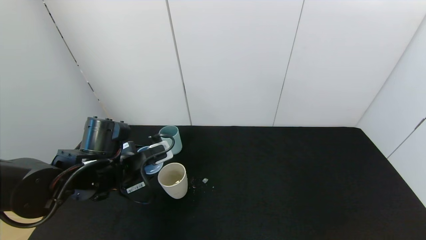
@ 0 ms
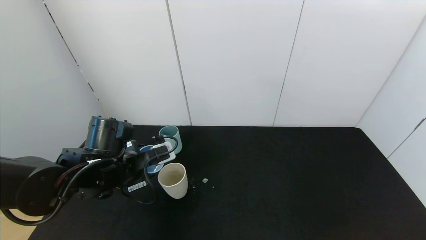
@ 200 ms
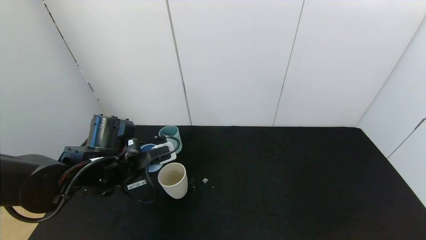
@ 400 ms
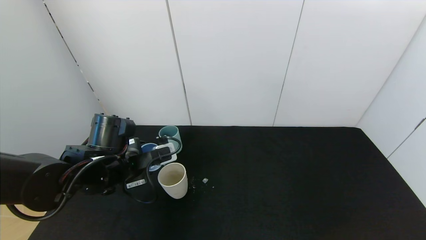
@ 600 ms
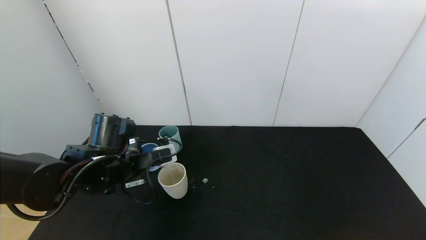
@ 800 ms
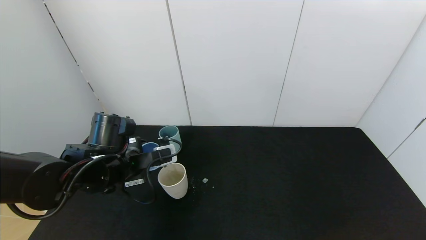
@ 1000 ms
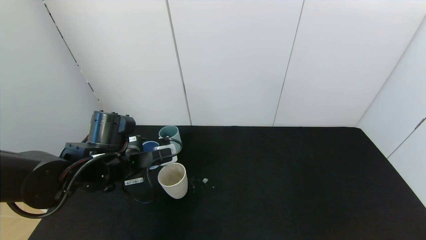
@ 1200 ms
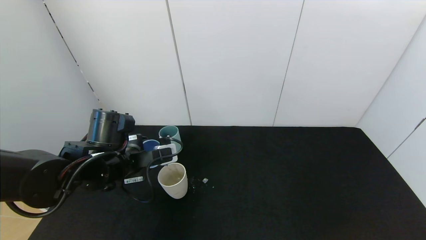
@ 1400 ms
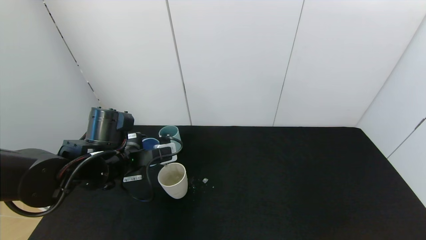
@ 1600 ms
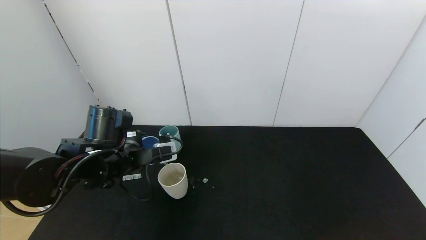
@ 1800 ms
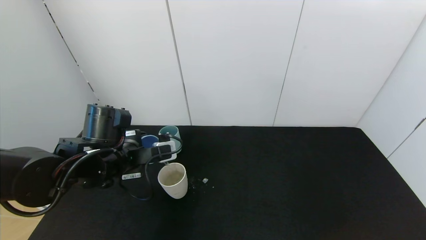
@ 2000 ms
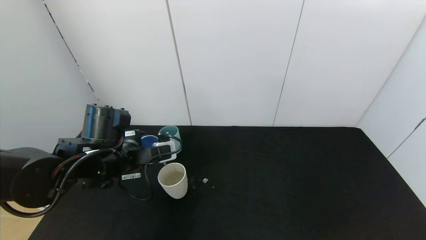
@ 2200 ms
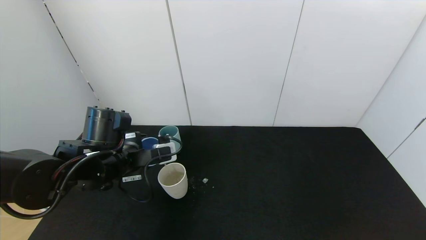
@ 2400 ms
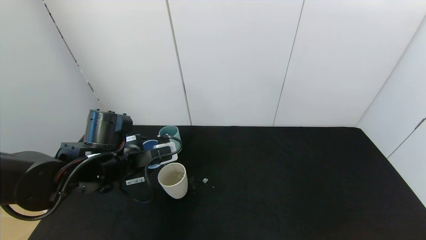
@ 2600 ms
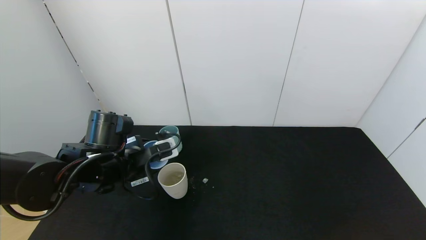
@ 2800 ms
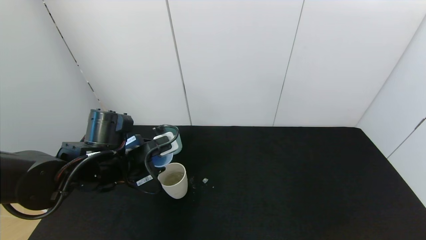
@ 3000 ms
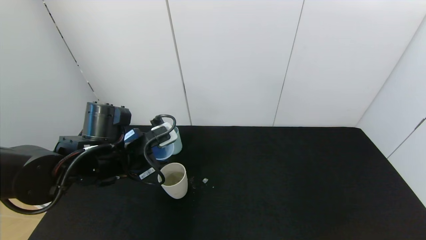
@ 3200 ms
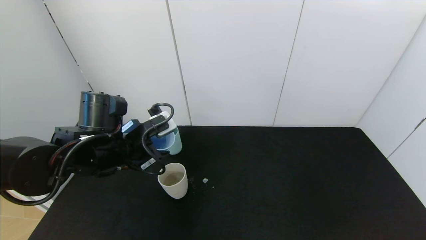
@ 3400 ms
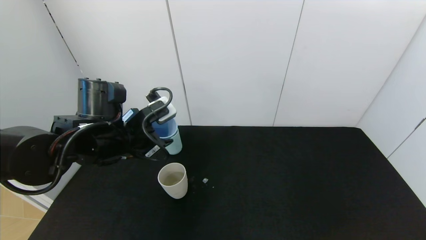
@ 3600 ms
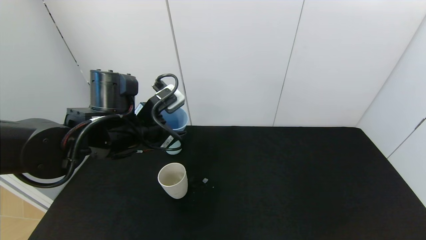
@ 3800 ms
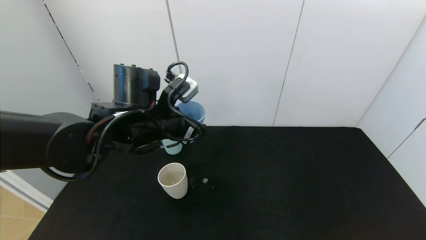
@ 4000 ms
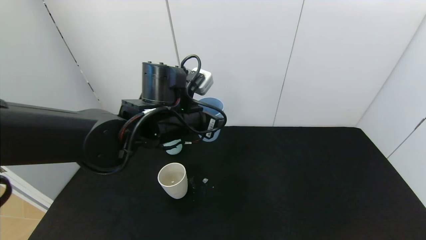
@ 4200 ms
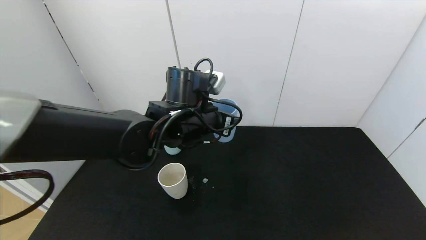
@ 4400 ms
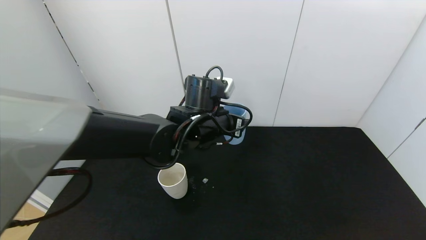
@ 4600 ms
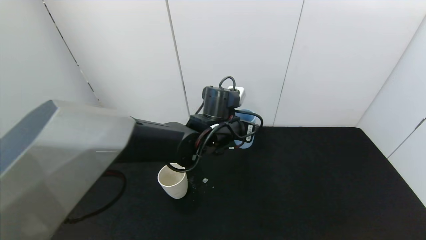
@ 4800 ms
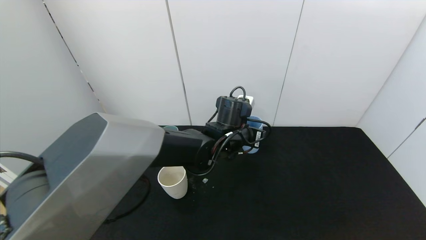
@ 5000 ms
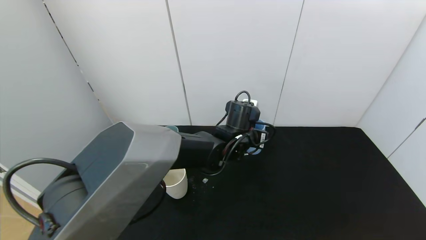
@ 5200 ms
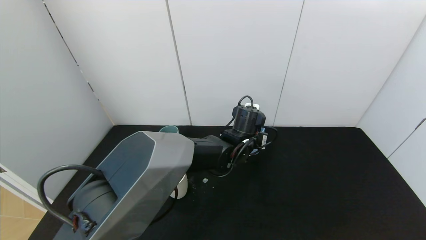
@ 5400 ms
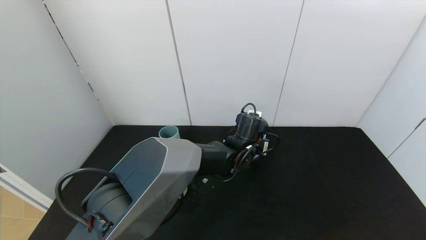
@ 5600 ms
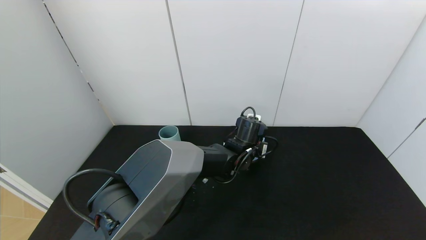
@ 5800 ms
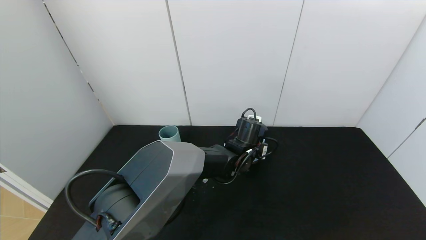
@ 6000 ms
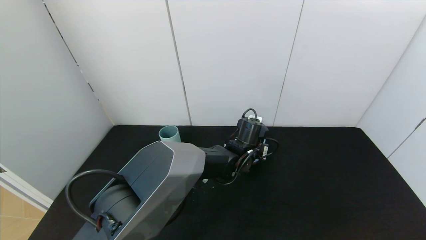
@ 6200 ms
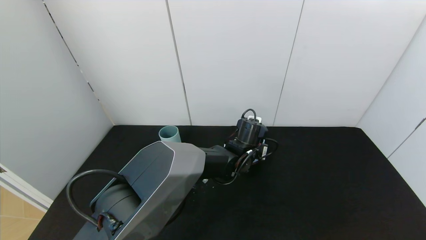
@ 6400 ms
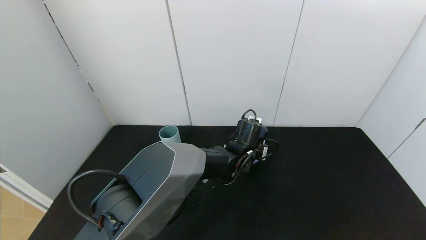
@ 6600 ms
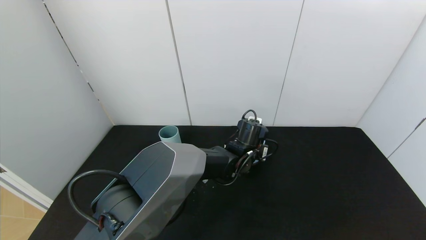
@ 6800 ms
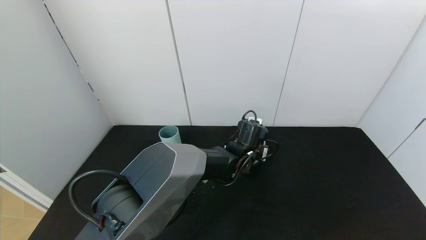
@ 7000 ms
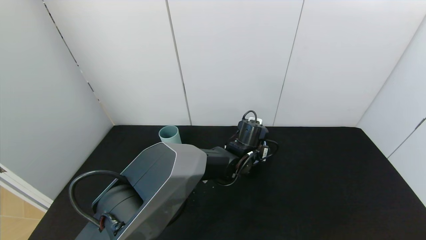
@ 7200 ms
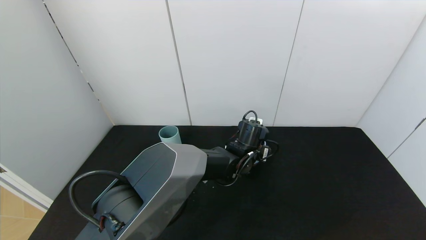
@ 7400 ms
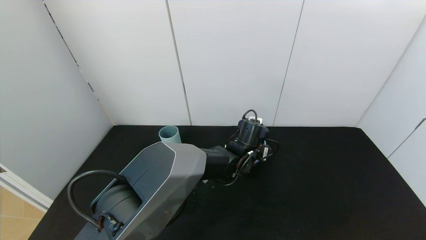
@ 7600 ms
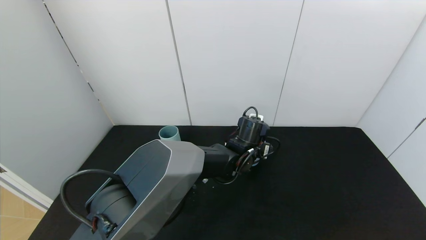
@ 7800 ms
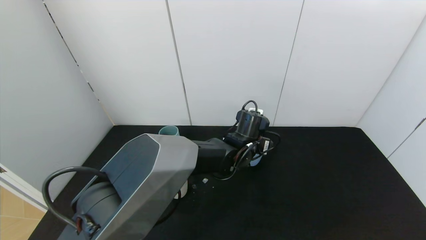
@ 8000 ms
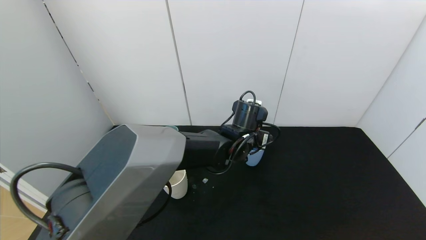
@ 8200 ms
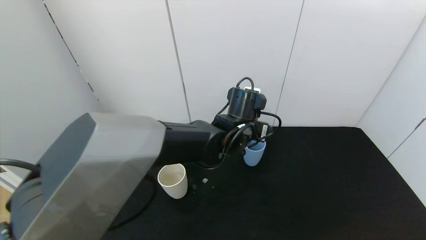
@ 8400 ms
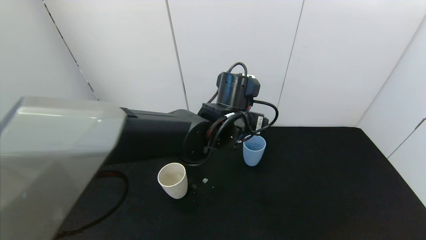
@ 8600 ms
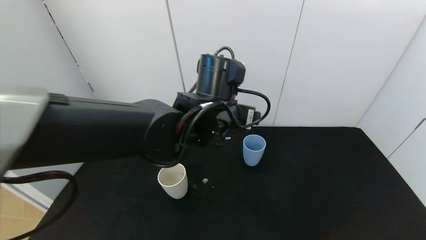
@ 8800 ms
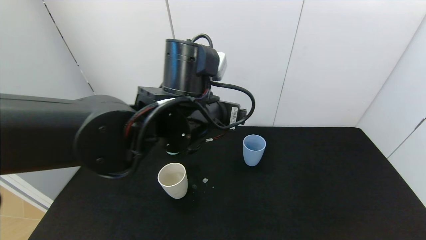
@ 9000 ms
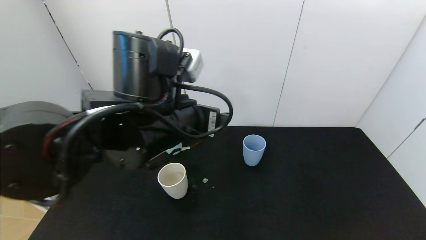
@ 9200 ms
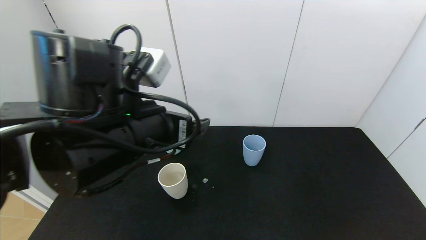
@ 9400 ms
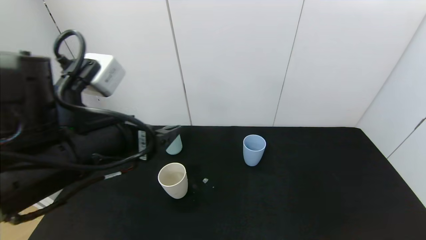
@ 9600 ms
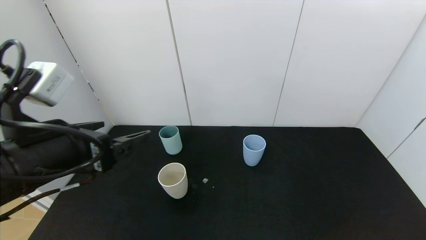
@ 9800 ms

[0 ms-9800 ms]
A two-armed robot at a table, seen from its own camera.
Task of the whole recording: use the gripper to pour the water into the other two cups on black table.
Step, 0 ms to 3000 ms: Pour water from blue cup to white cup with the left gripper.
Step, 3200 ms to 9000 ms: Place the blue cup with the left gripper.
0 ms to 2800 ms: The grippers make only small movements.
2800 ms to 4200 ms: The left gripper shifts roughly 15 cm to the right and upward.
4200 ms to 5600 ms: The left gripper goes about 20 cm to the right, downward and forward.
5600 ms to 7000 ms: The left gripper opens its fingers.
7000 ms to 8400 ms: The left gripper moves upward, some 10 cm, and opens.
8400 ms to 9800 ms: The left gripper shifts approximately 30 cm to the left and backward.

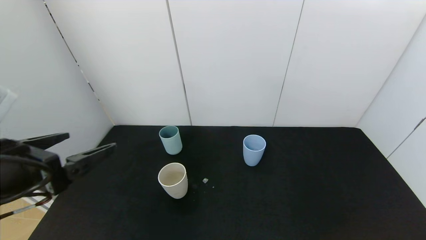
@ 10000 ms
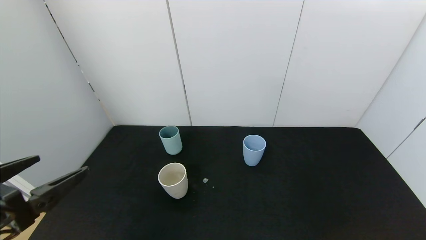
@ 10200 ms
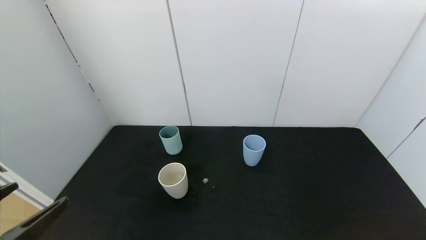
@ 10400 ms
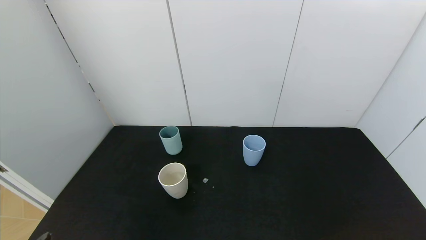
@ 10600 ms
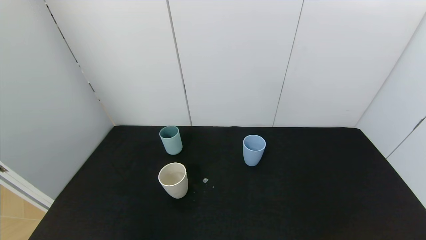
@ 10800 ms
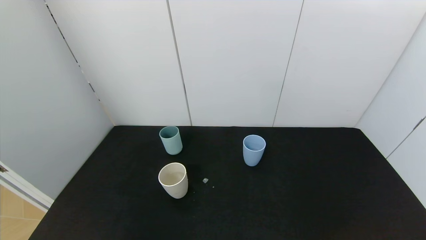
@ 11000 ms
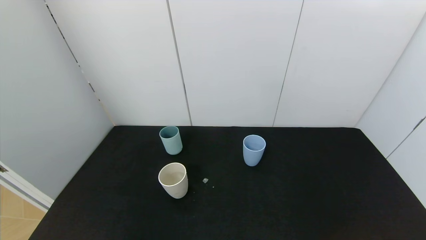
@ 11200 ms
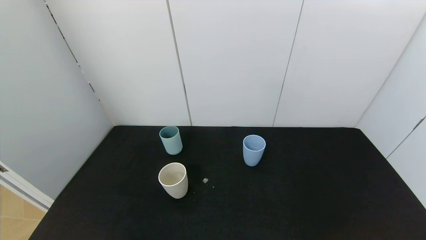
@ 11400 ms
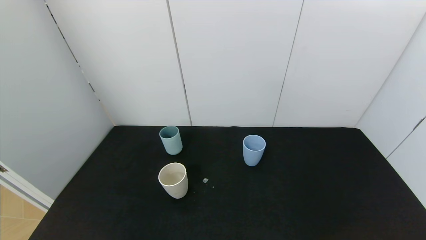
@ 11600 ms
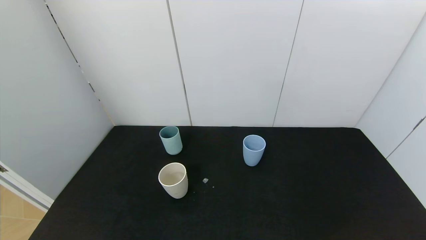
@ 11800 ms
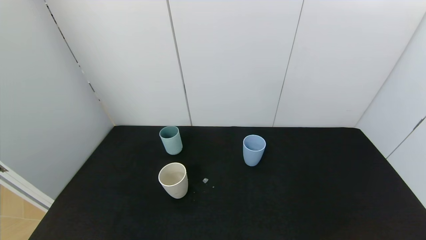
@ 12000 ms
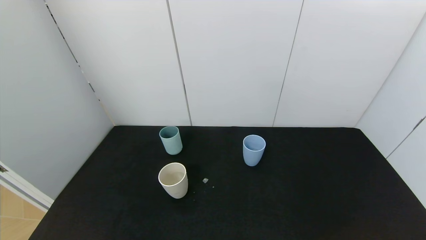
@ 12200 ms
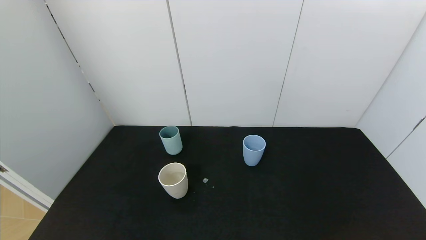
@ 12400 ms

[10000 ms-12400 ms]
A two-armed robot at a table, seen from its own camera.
Task of the whole recording: use the gripper to pour the water into the other two cups on black table.
10000 ms to 11200 ms: The left gripper shifts some 20 cm backward and downward.
